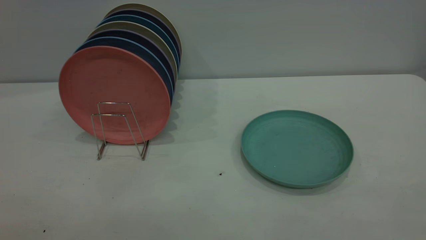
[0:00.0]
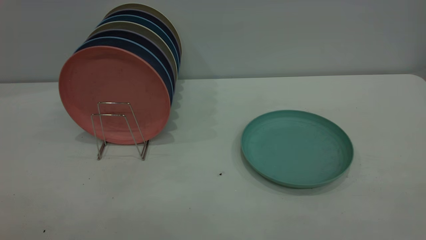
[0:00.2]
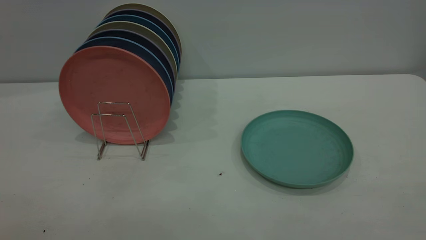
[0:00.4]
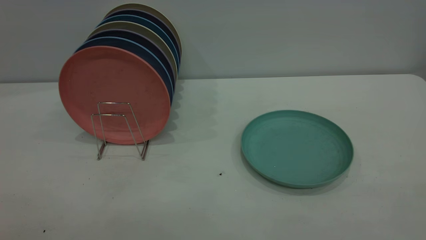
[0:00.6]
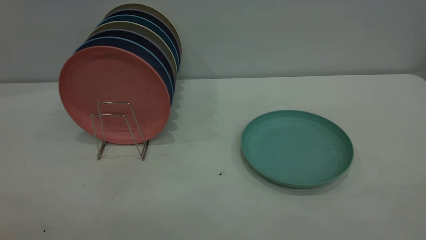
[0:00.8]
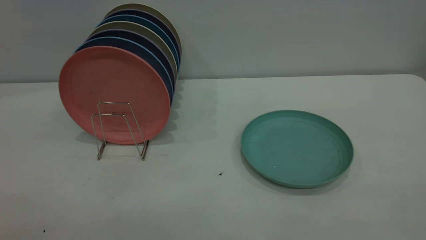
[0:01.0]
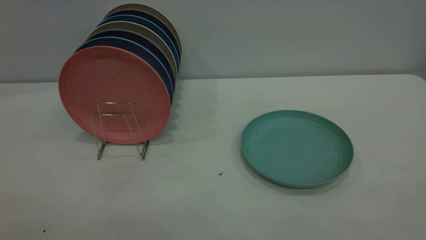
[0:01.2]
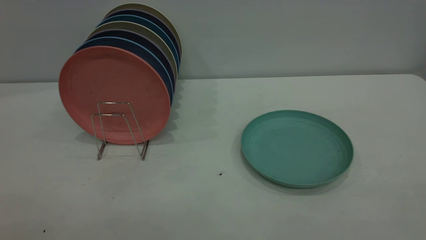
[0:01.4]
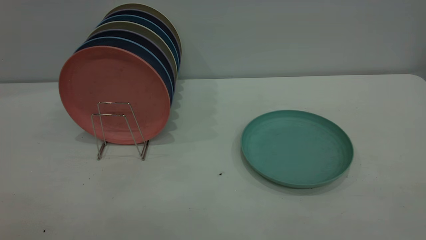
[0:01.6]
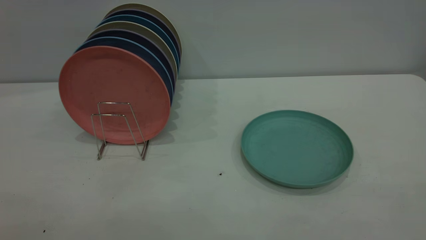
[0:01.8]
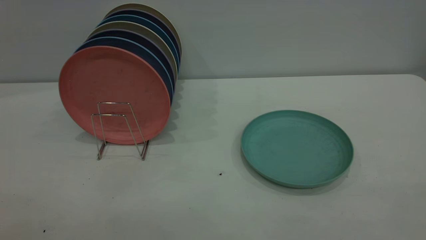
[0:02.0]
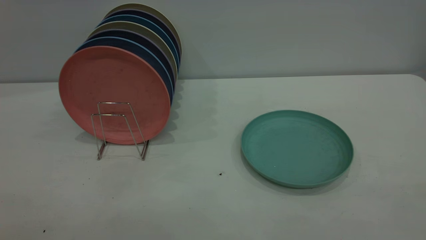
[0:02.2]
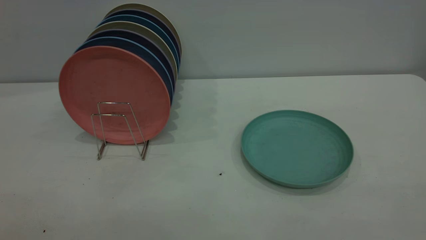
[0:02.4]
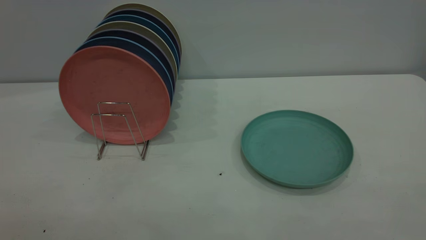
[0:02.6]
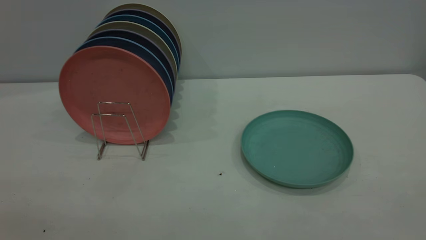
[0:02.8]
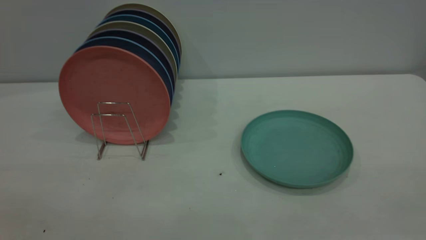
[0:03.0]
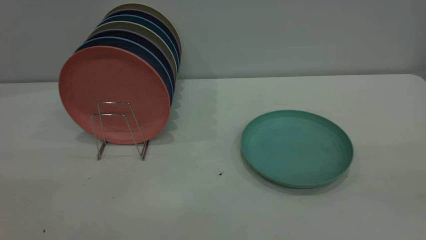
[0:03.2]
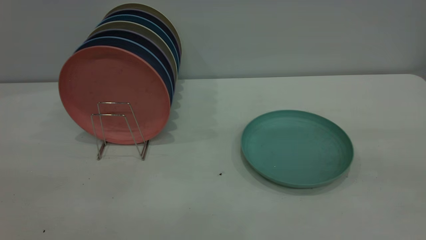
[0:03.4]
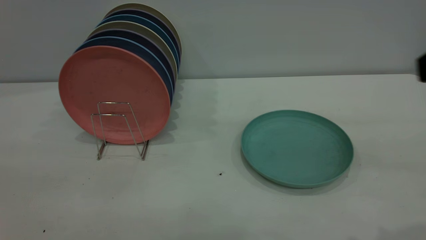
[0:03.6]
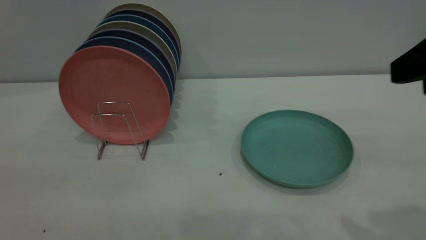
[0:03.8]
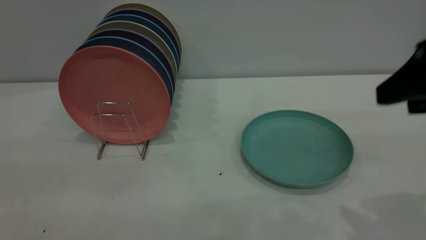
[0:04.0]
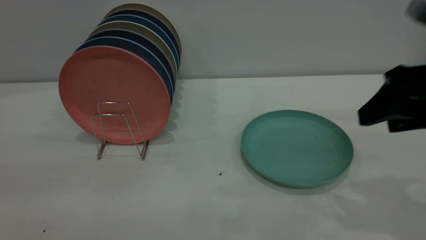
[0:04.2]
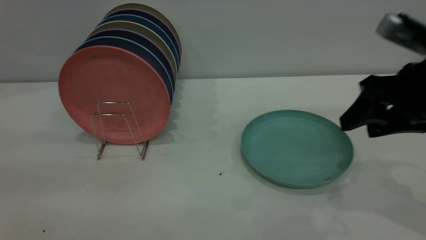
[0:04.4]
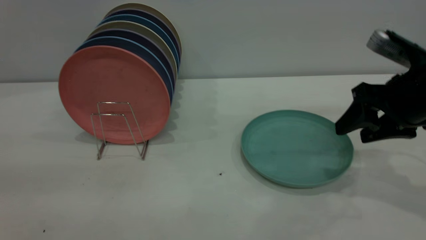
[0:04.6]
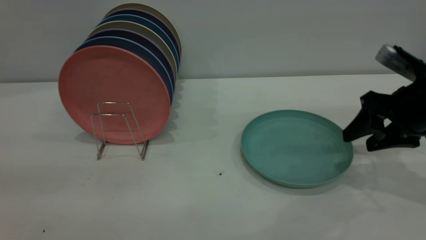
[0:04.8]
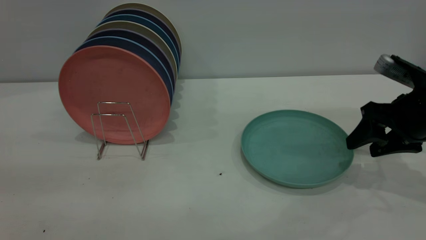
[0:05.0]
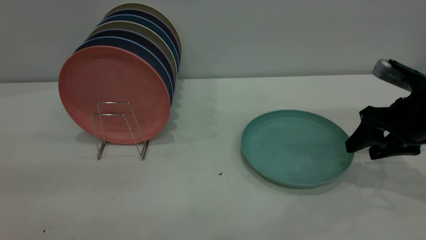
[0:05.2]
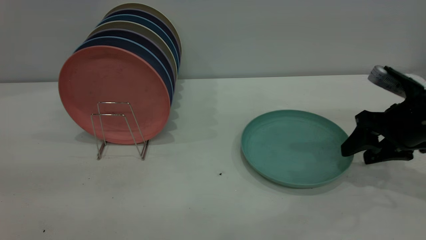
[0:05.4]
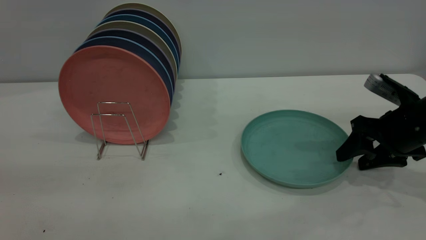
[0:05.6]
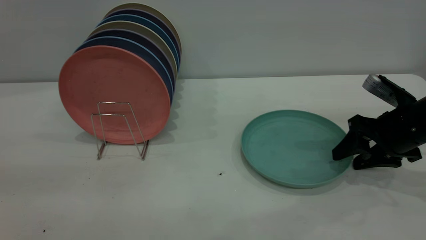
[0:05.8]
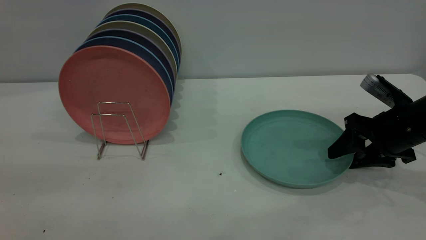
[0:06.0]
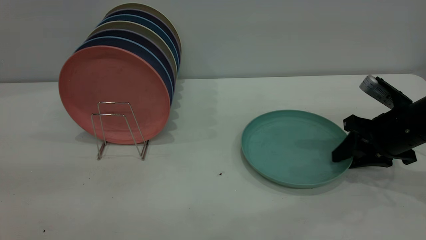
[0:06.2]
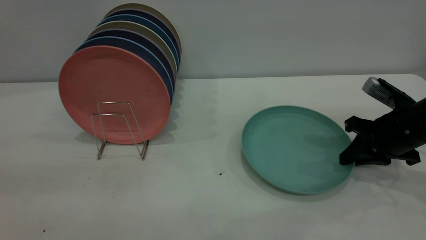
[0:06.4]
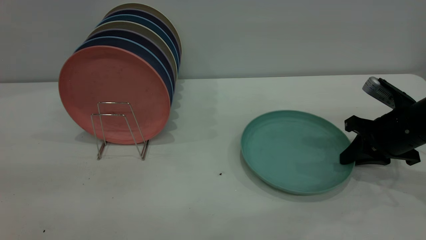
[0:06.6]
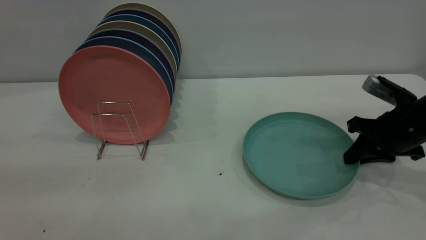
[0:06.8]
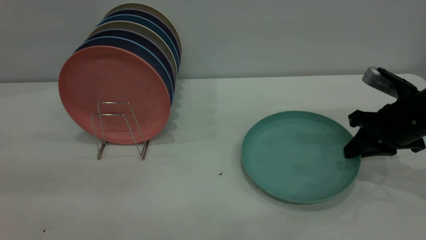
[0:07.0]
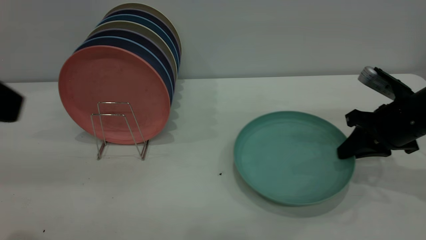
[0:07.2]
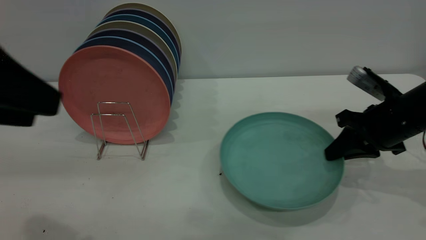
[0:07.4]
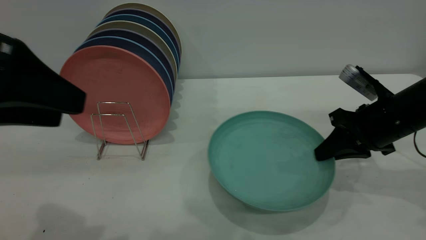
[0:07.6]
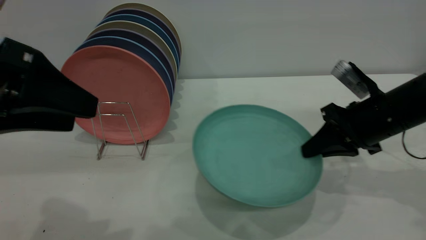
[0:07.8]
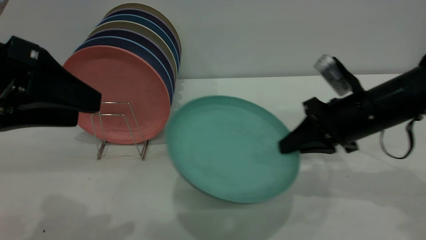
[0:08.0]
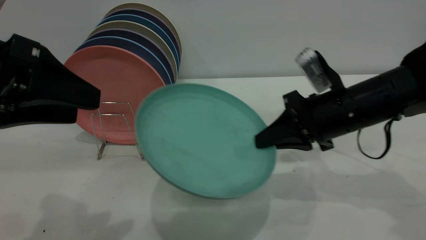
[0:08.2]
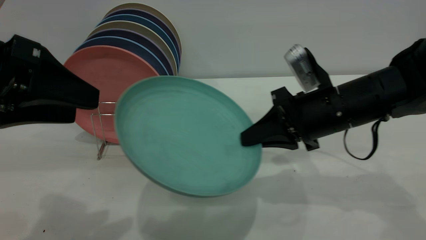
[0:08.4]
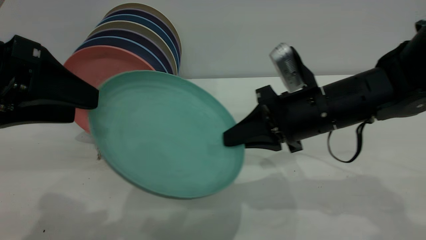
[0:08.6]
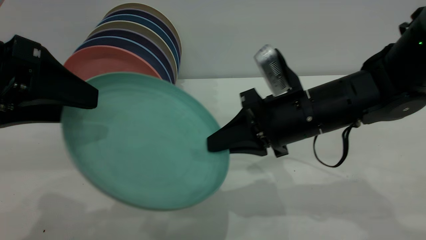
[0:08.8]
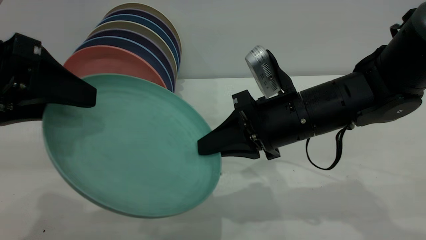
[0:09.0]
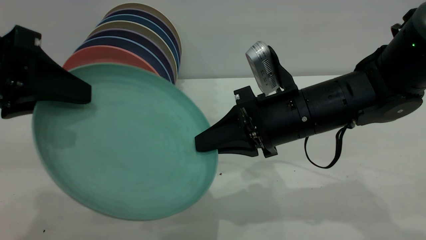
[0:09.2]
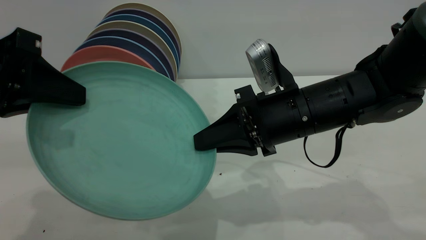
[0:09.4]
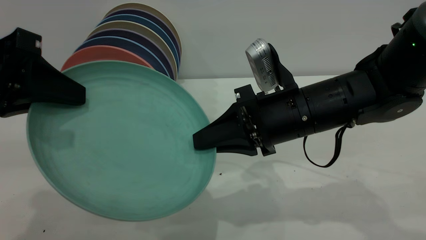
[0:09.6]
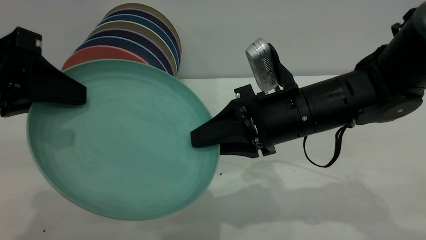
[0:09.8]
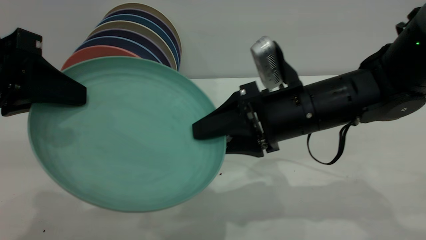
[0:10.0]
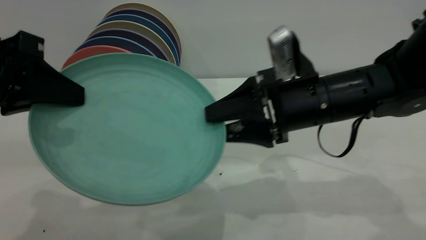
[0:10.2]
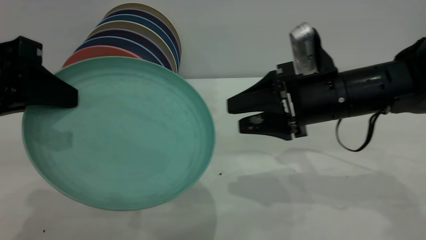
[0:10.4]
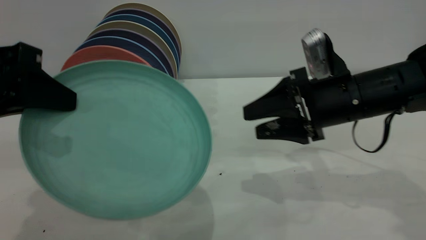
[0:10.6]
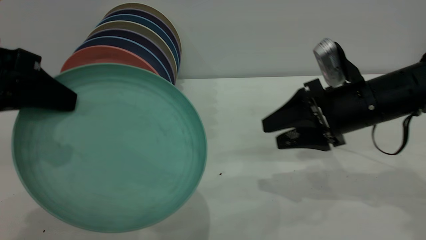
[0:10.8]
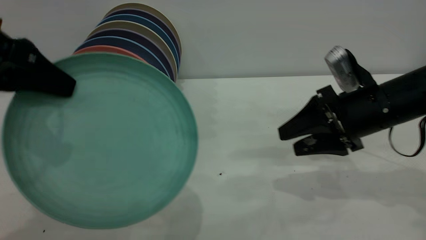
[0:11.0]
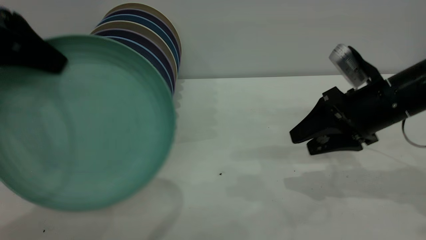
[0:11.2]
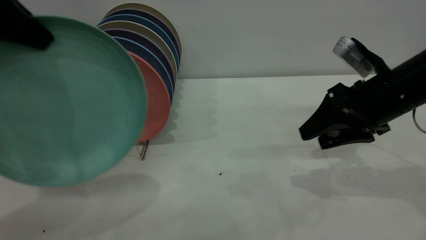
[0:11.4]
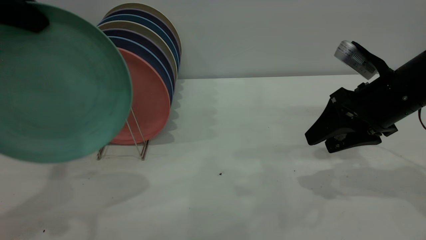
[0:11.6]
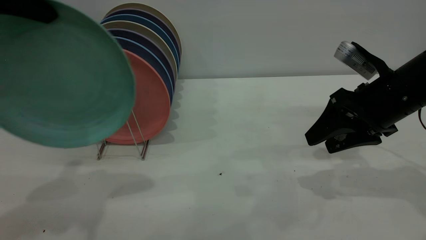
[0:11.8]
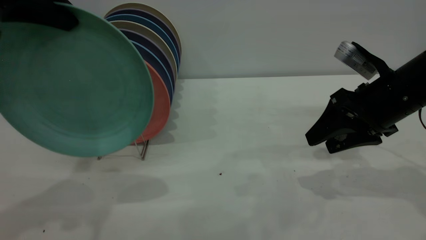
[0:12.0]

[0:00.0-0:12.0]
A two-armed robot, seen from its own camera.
Task of the whole recording: the right gripper grasp the green plate, the right gripper pass the green plate to the left gripper, and the left gripper place the green plate on the plate rack.
Step, 0:00.0 to 0:07.4: Pick up the plate with the right gripper.
Step, 0:07.6 to 0:10.2: Pass the plate from the right gripper to the left gripper.
0:00.0 to 0:01.6: Both grippers stay put.
0:03.0 to 0:04.4: The right gripper shifts approximately 35 cm forward and downward.
0:04.4 to 0:06.0: The right gripper shifts some 10 cm downward and forward.
0:06.0 to 0:07.6: The right gripper closes up. Meanwhile the left gripper shifts roughly 10 cm forward and downward.
0:07.6 to 0:09.0: The right gripper moves to the left, some 15 cm.
0:09.0 to 0:10.4: The right gripper travels to the right by roughly 5 cm, and opens up, while the left gripper closes its fingers.
0:10.4 to 0:12.0: The left gripper heads upward and forward, covering some 10 cm. The right gripper shifts some 10 cm to the right.

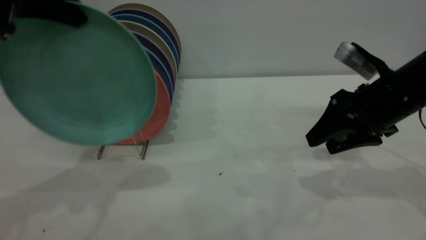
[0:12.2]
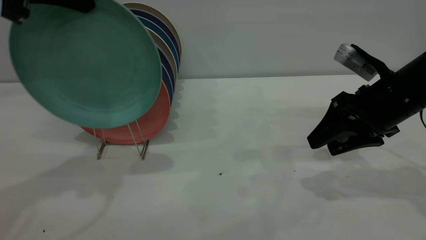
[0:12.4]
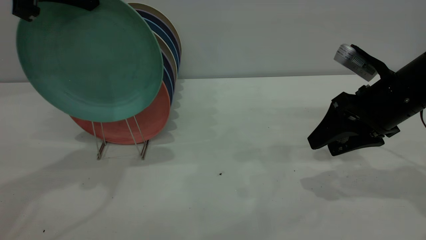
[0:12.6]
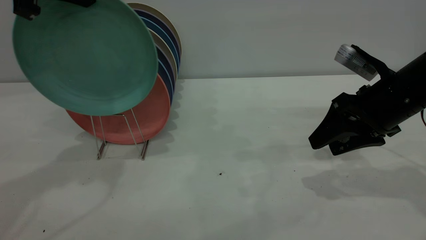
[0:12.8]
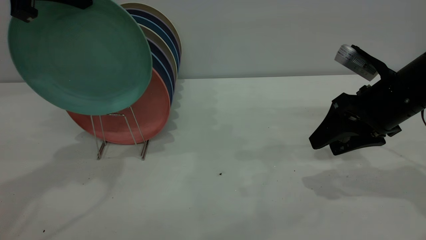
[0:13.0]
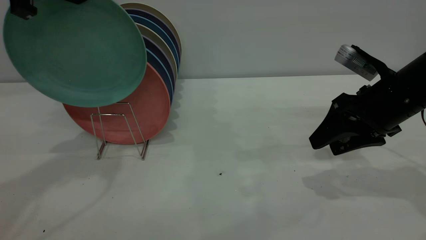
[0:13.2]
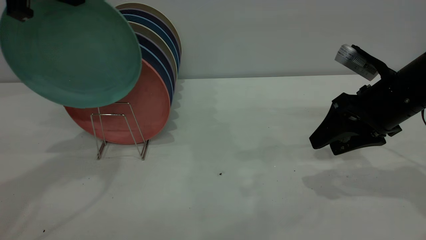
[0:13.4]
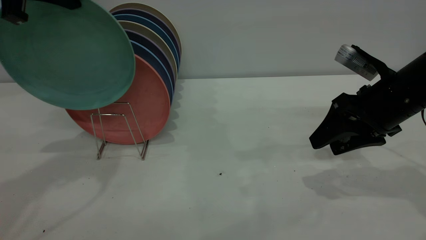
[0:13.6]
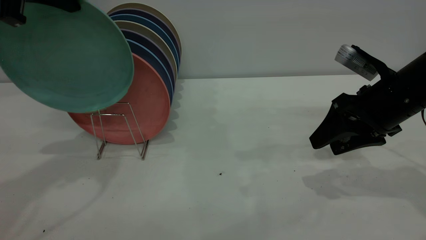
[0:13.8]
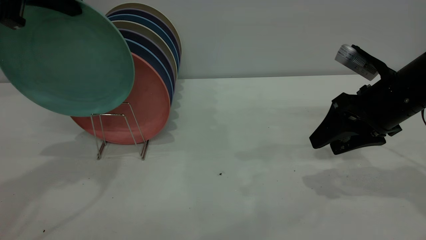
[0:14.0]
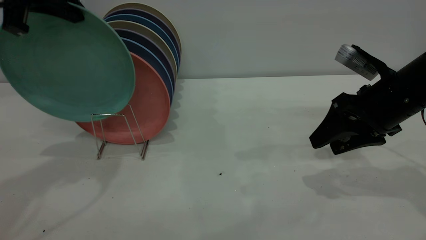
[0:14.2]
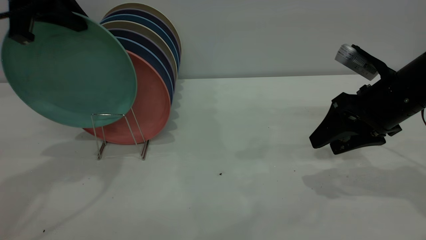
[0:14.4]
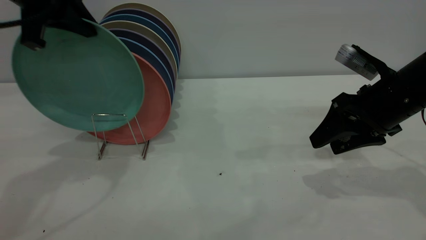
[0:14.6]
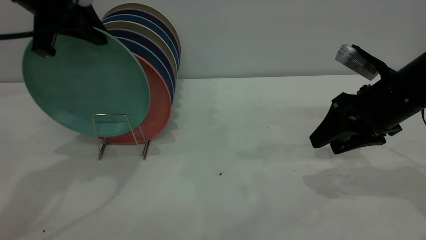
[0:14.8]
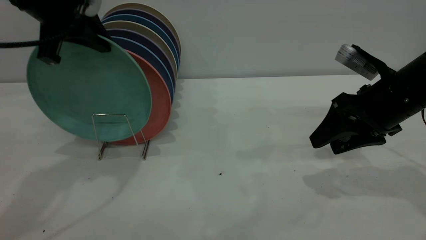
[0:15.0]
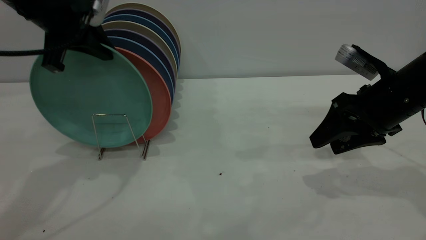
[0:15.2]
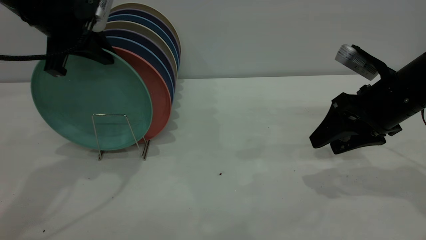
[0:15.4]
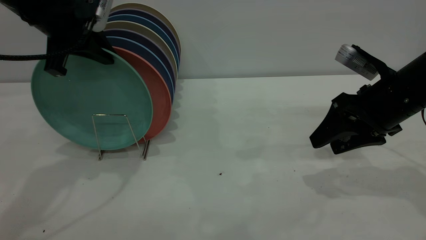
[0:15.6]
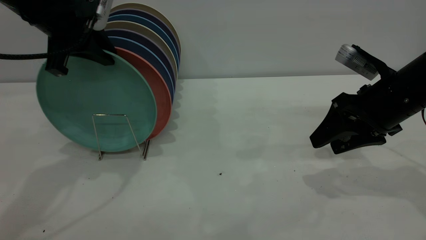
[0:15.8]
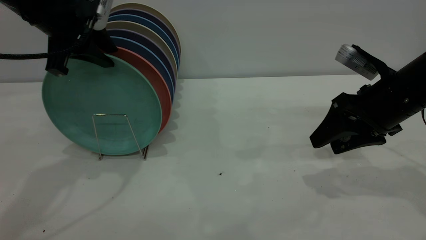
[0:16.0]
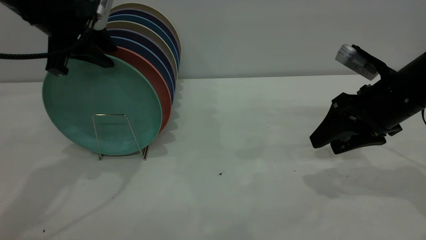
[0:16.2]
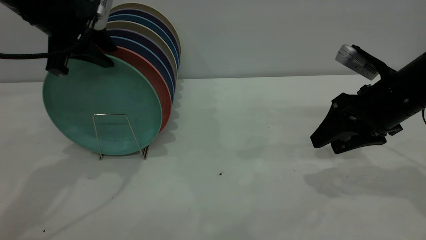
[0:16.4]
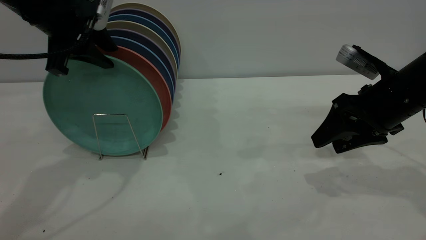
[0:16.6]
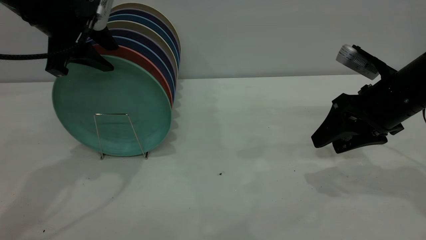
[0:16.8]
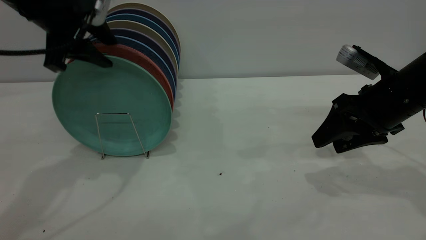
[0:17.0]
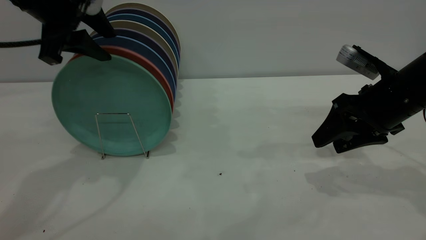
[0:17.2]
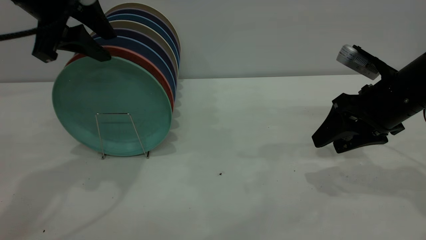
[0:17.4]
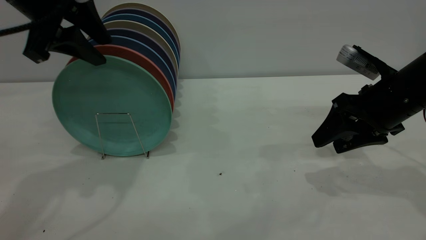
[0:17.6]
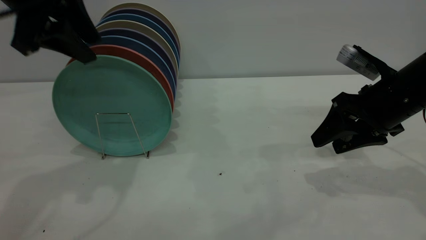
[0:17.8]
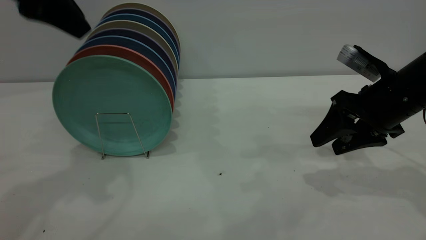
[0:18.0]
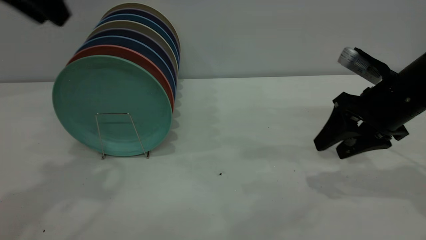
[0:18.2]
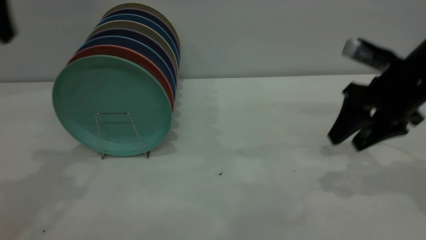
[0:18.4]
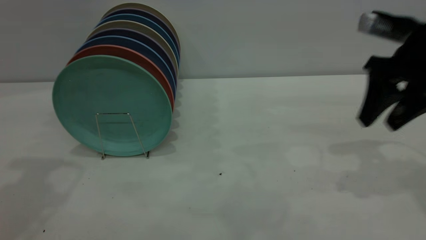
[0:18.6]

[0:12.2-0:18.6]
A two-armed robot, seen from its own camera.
Task of the whole recording: the right gripper grasp the green plate, the right gripper pass the green plate to the left gripper, and the left gripper place the green plate on the plate rack.
Step, 0:12.2 to 0:17.8: Place the plate on the shelf.
0:12.2 to 0:13.8: The grippers stay close to where they were, moving slightly.
0:13.8 to 0:15.4: The left gripper travels downward by some 5 cm.
0:15.4 to 0:17.0: The left gripper opens up.
0:17.0 to 0:18.6: The left gripper shifts approximately 15 cm backward and upward. The right gripper goes approximately 10 cm upward.
